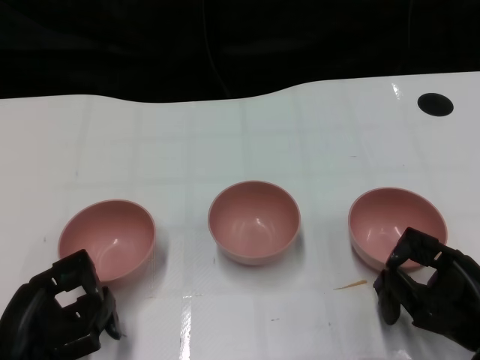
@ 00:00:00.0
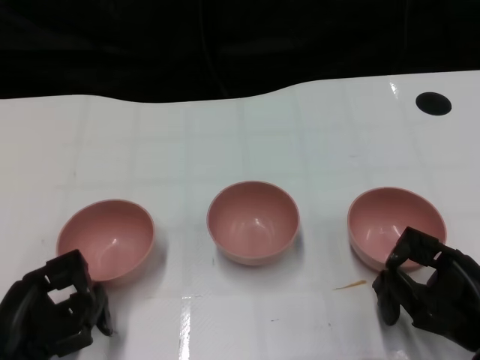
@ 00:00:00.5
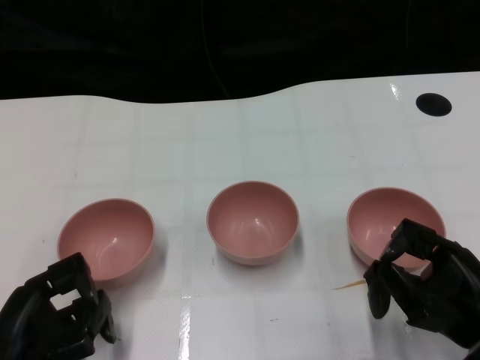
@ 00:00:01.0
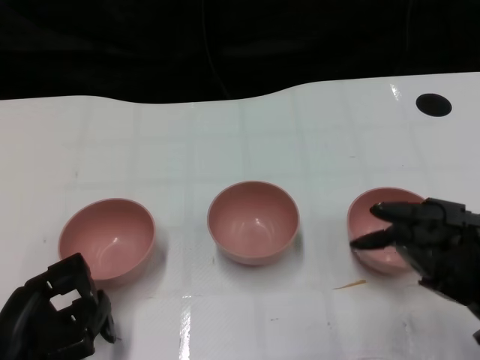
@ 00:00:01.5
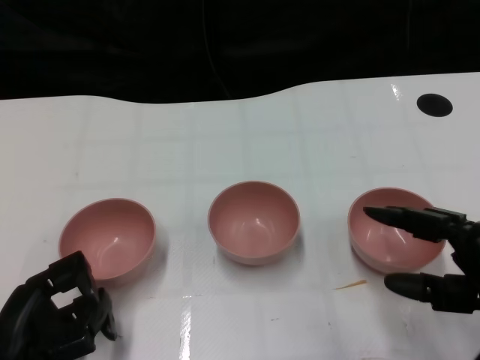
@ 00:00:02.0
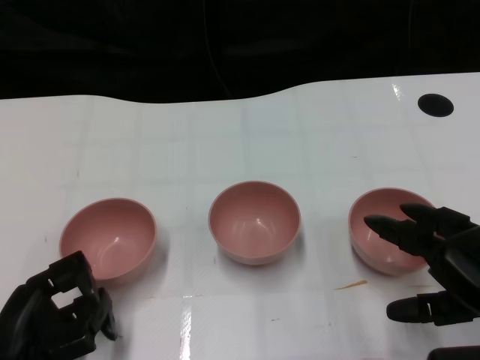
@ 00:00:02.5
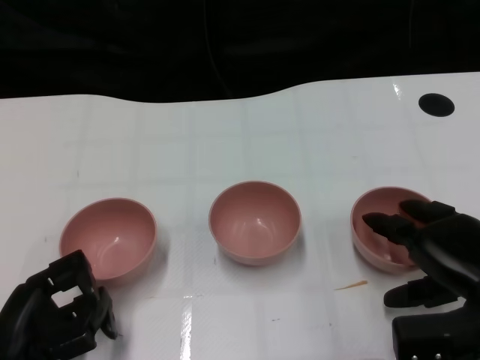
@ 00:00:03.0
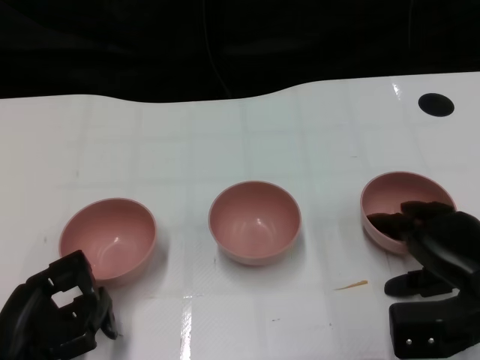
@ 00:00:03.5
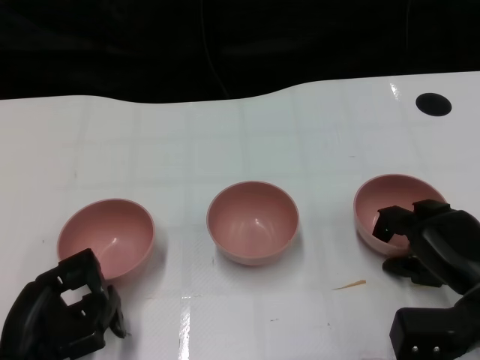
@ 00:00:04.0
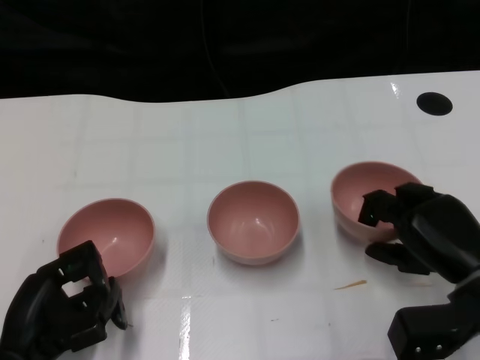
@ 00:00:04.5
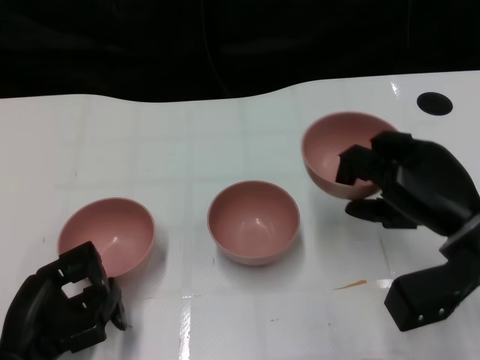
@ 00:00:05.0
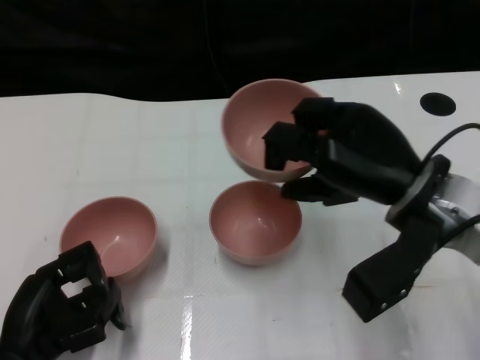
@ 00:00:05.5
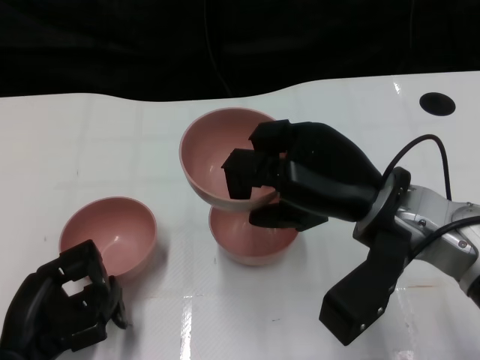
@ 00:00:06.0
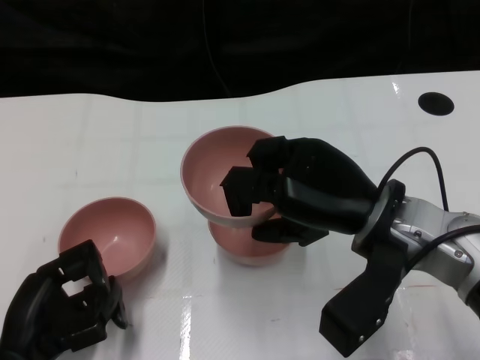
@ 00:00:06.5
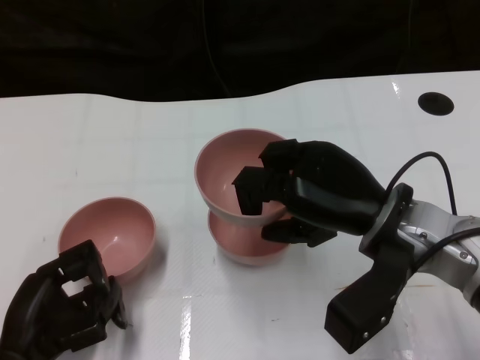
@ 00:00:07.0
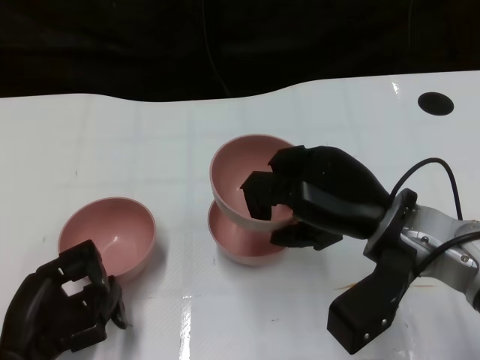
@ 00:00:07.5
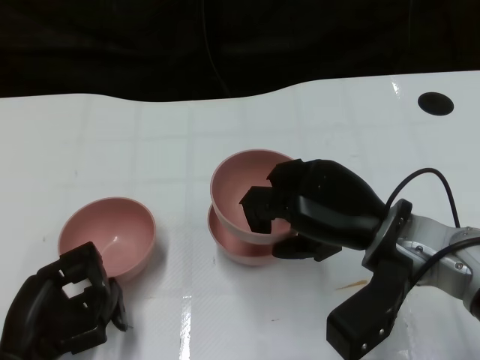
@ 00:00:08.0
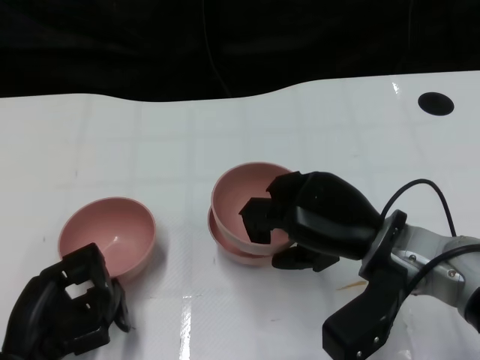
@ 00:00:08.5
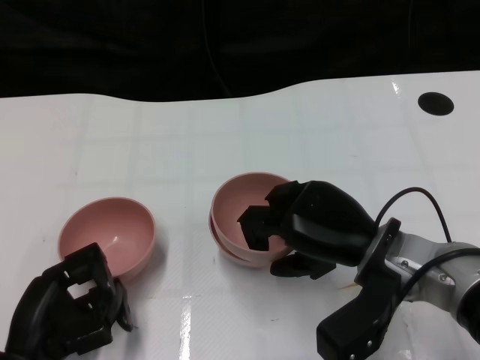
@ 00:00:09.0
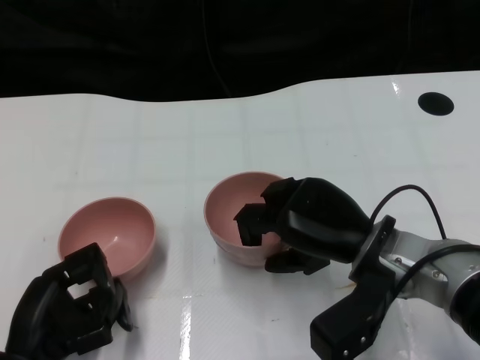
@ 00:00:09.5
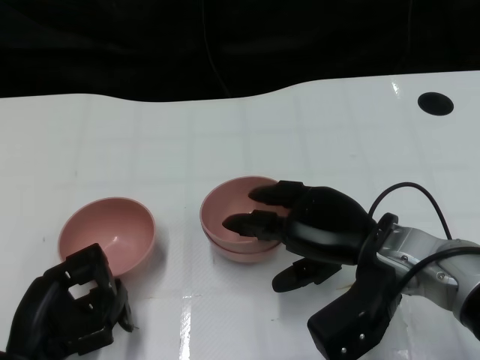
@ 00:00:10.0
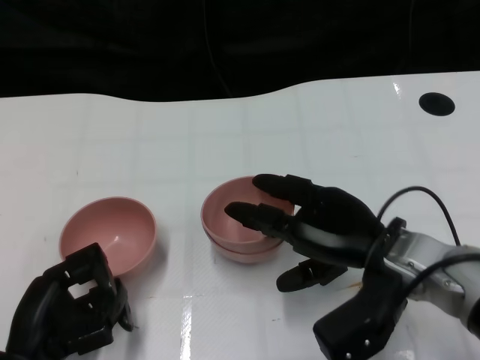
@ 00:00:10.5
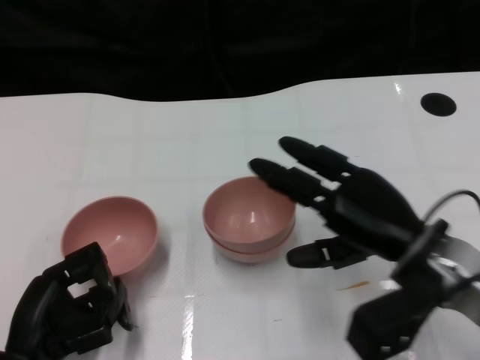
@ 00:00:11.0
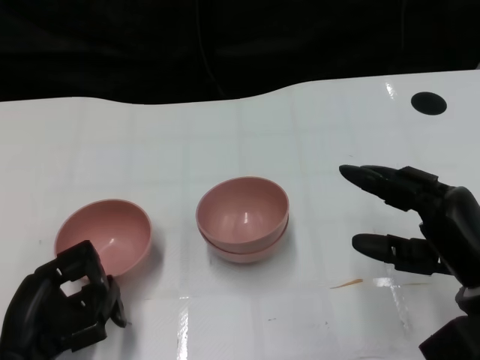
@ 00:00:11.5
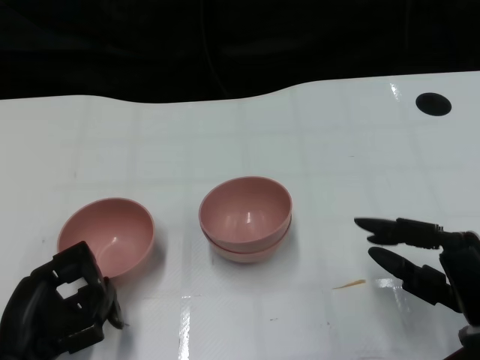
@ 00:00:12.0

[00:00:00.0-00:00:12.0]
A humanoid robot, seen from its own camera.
Task of the whole recording: Pick up the bowl on one side of the table and place it on top of the middle bowl, then pick up the bowl on the other side of the table and place it on top of the middle bowls.
Step, 00:00:01.5 to 00:00:04.0: Grasp the bowl on the right with the right gripper.
Step, 00:00:05.0 to 00:00:11.0: Place the bowl on the right onto the bowl in the middle with right gripper.
00:00:02.0 to 00:00:04.0: The right hand is displaced downward and forward by approximately 10 cm.
00:00:04.0 to 00:00:06.0: The right hand heads upward and to the left, covering about 15 cm.
00:00:06.0 to 00:00:08.0: The hands make only small movements.
00:00:08.0 to 00:00:10.0: The hands make only small movements.
00:00:10.0 to 00:00:12.0: The right hand shifts roughly 15 cm to the right, backward and downward.

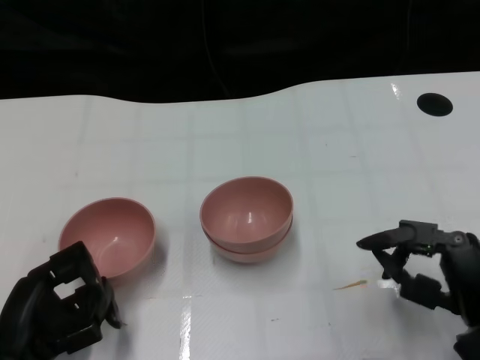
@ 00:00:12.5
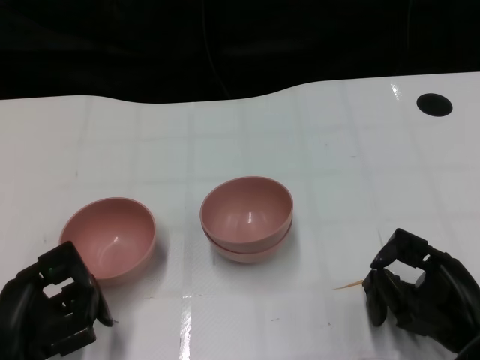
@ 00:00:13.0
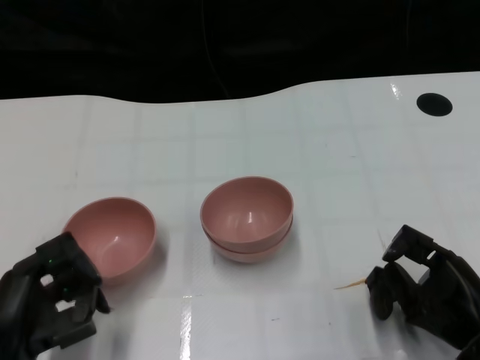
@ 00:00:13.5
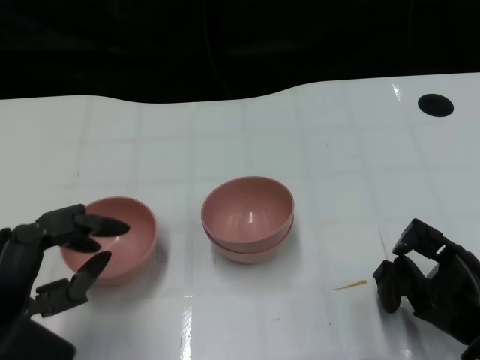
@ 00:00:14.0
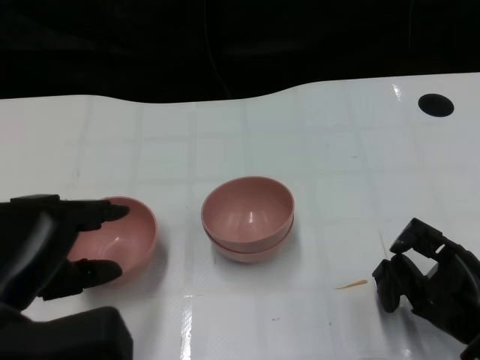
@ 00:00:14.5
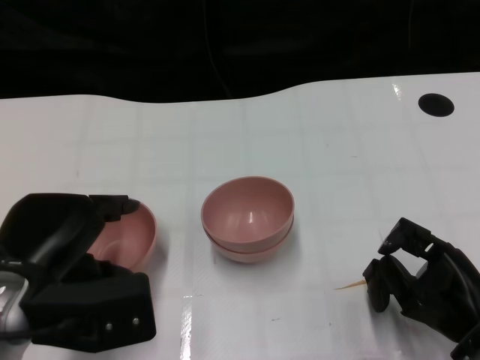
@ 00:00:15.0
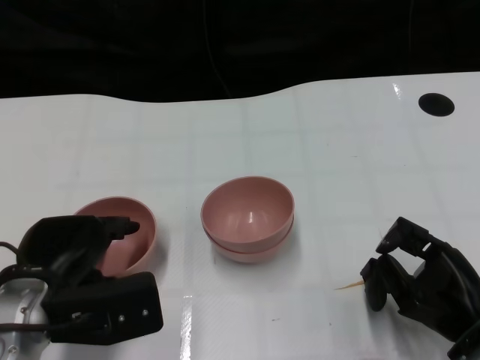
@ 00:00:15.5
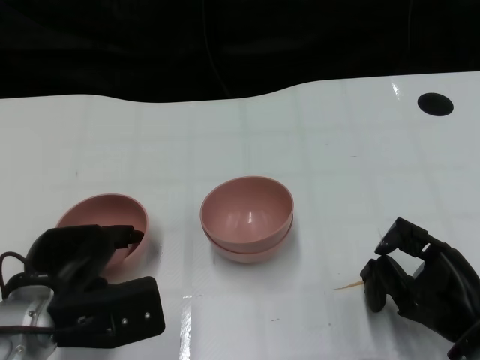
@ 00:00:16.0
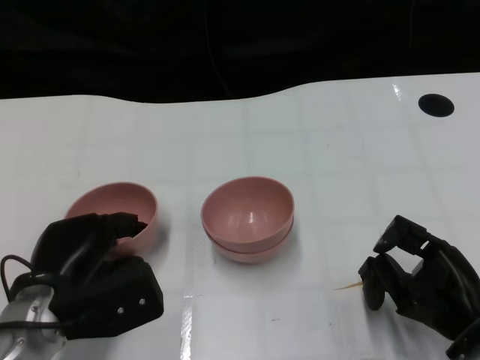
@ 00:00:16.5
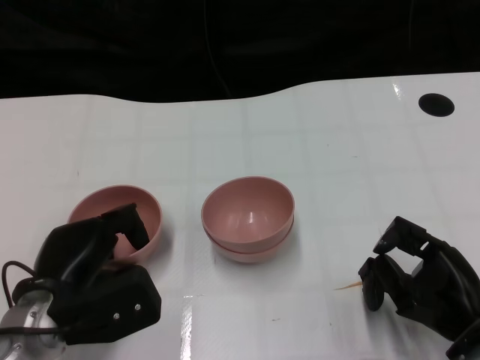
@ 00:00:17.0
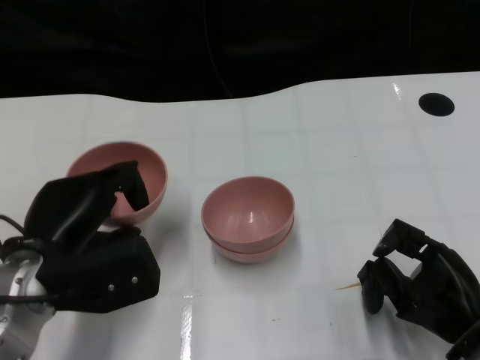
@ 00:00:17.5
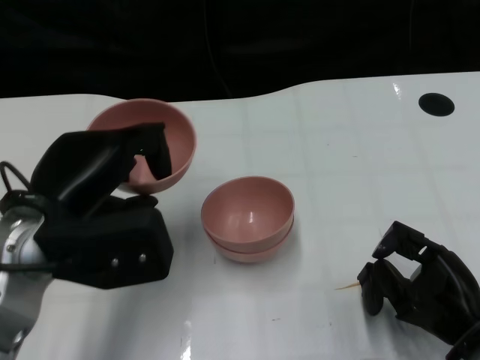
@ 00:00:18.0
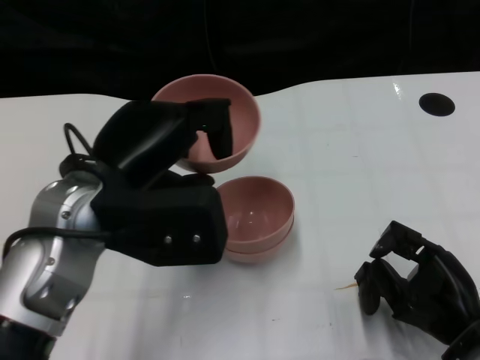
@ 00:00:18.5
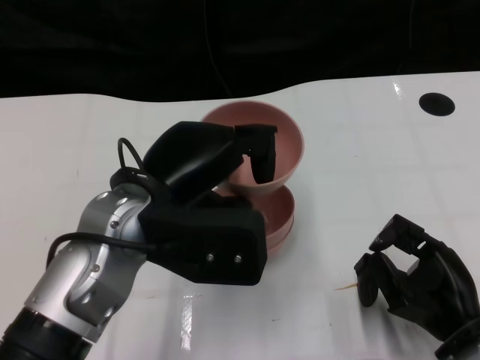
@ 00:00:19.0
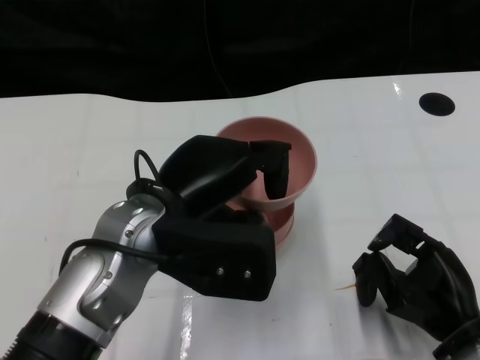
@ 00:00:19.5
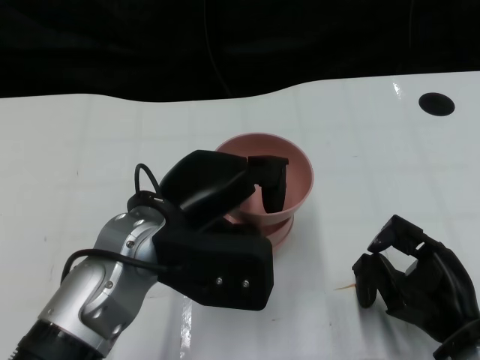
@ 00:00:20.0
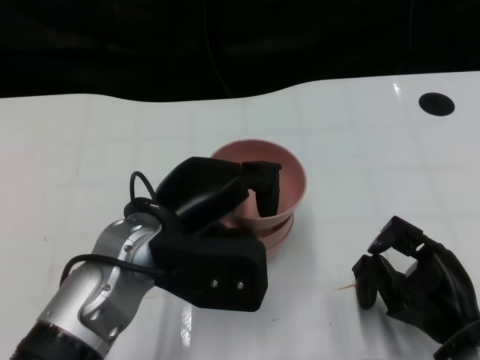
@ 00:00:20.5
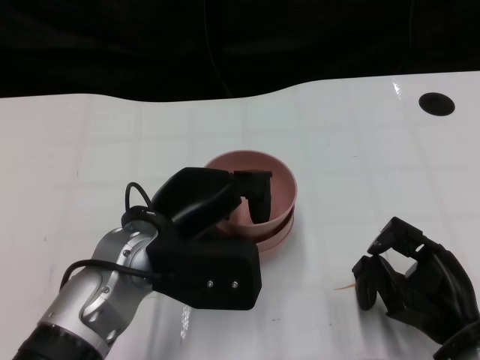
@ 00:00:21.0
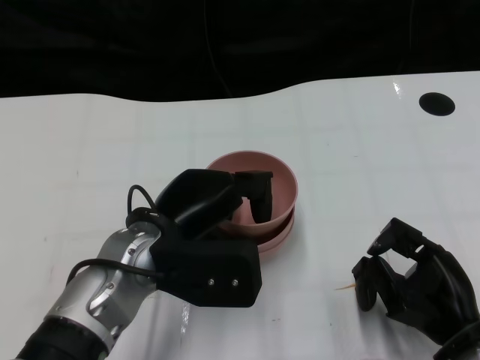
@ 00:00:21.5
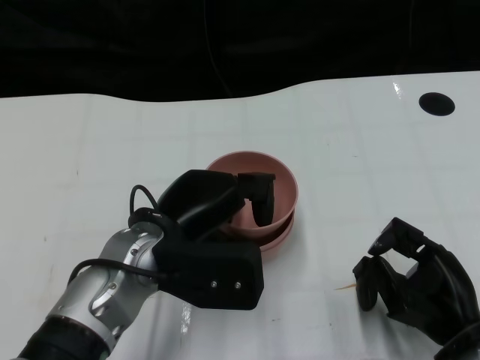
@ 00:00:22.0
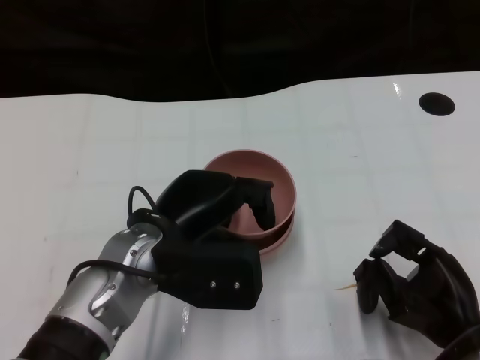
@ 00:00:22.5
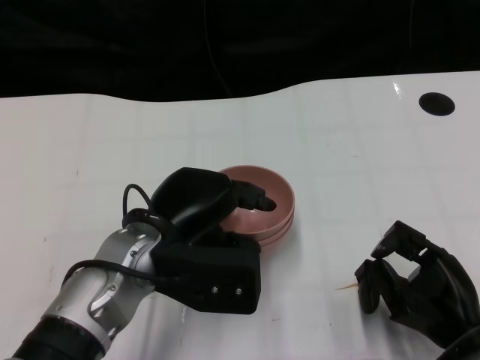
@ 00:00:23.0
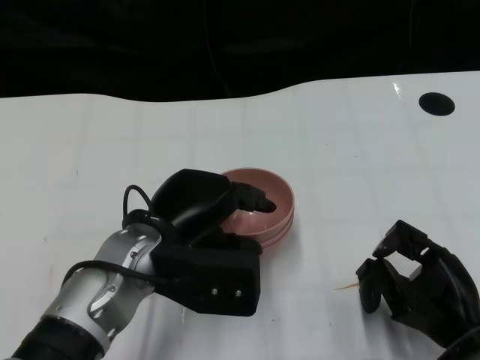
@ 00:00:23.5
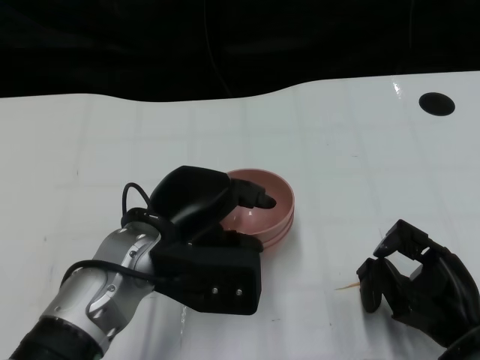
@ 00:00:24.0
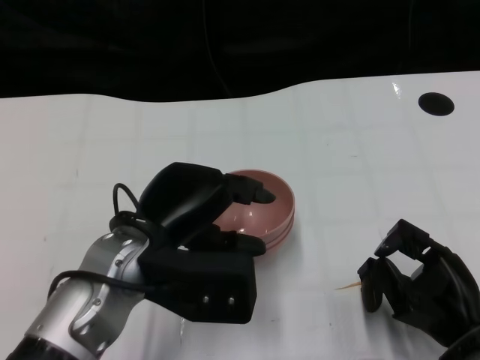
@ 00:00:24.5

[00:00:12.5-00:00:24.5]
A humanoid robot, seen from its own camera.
Task of the whole recording: Pick up the bowl on one side of the table and place it on top of the middle bowl, then pick up the bowl on the other side of the table and place it on top of the middle bowls.
Step, 00:00:12.5 to 00:00:17.0: Grasp the bowl on the left with the left gripper.
00:00:12.5 to 00:00:14.5: The left hand is displaced upward by about 10 cm.
00:00:14.5 to 00:00:16.5: The left hand goes roughly 10 cm downward and forward.
00:00:16.5 to 00:00:18.5: The left hand goes roughly 15 cm upward and to the right.
00:00:18.5 to 00:00:20.5: The left hand moves roughly 5 cm.
00:00:20.5 to 00:00:24.5: The hands stay close to where they were, moving slightly.

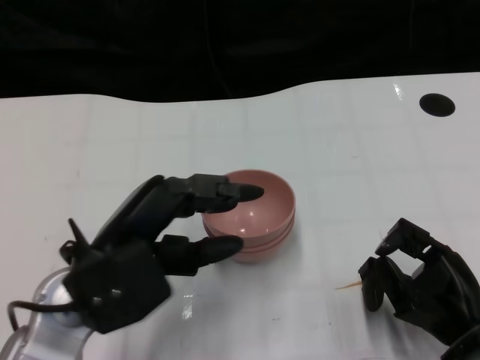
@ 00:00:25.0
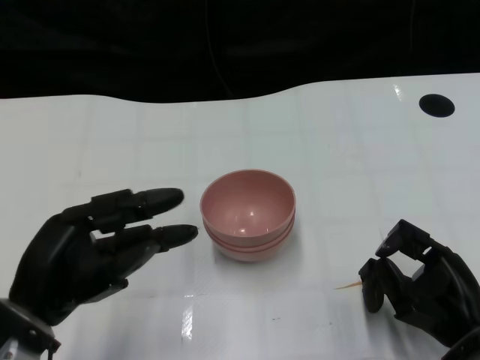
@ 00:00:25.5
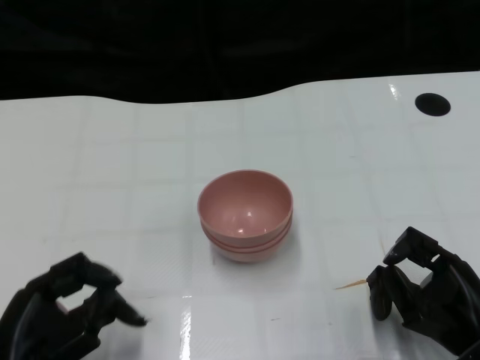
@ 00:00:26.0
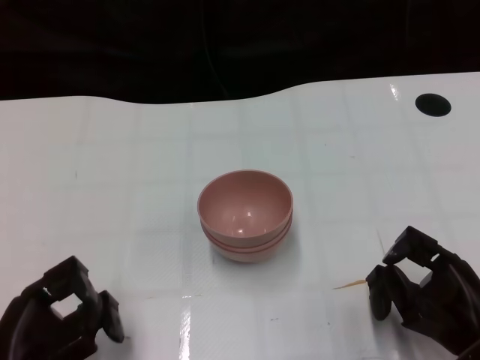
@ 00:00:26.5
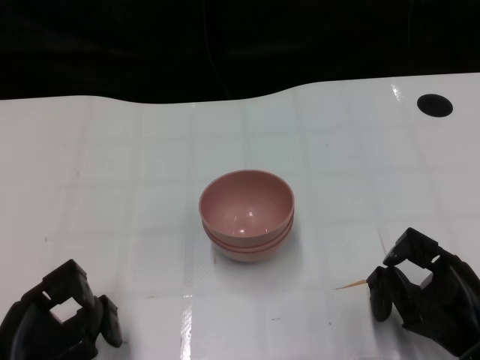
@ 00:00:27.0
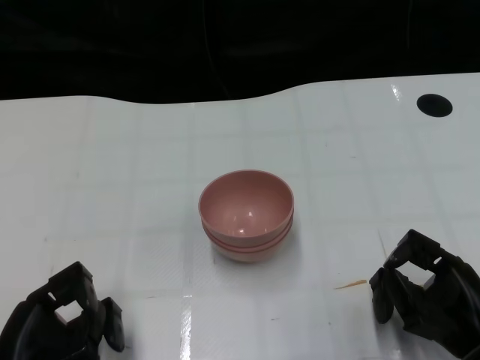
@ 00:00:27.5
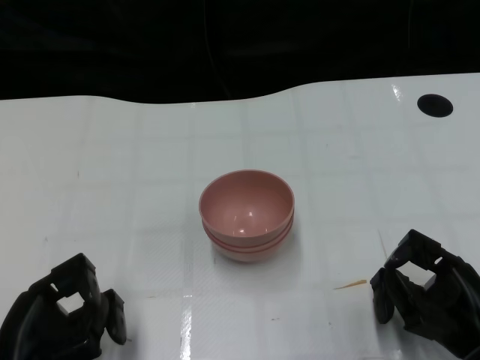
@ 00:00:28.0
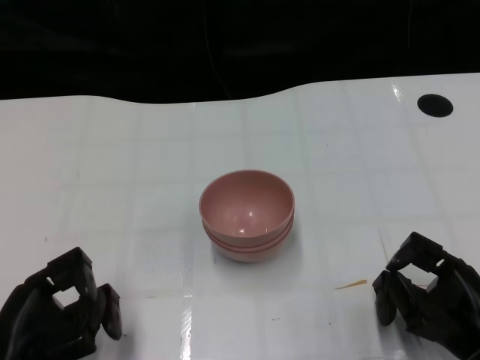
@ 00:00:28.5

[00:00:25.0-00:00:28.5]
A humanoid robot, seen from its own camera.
Task of the whole recording: Pick up the bowl on one side of the table and place it on top of the middle bowl, then pick up the bowl on the other side of the table and place it on top of the middle bowls.
00:00:25.0 to 00:00:27.0: The left hand travels downward, to the left and backward by some 15 cm.
00:00:27.0 to 00:00:28.5: There are only small adjustments of the hands.
